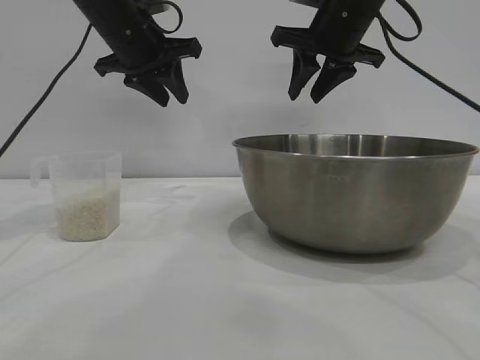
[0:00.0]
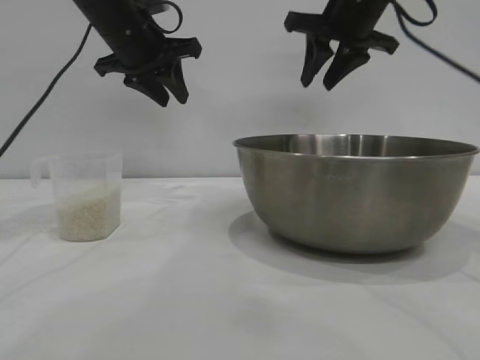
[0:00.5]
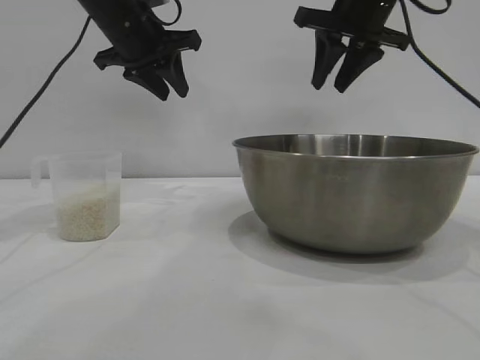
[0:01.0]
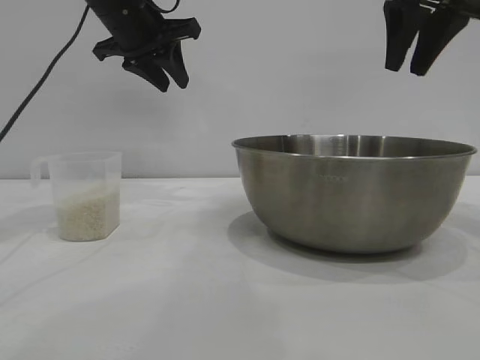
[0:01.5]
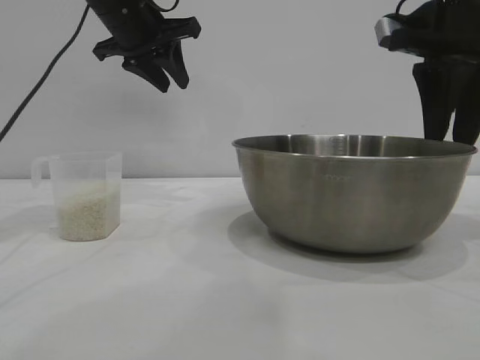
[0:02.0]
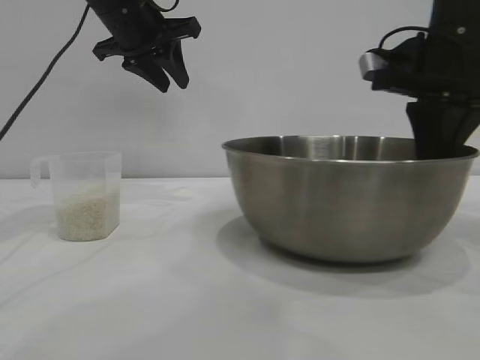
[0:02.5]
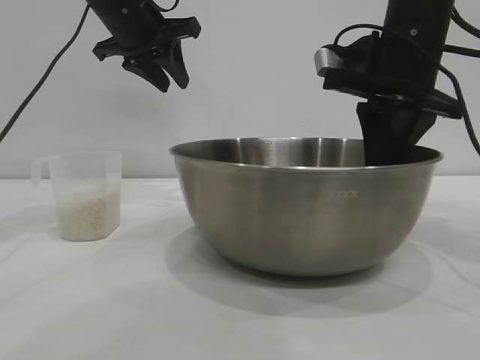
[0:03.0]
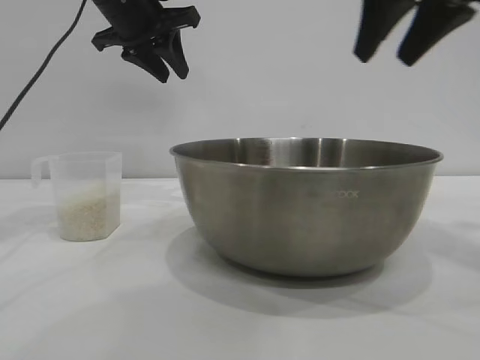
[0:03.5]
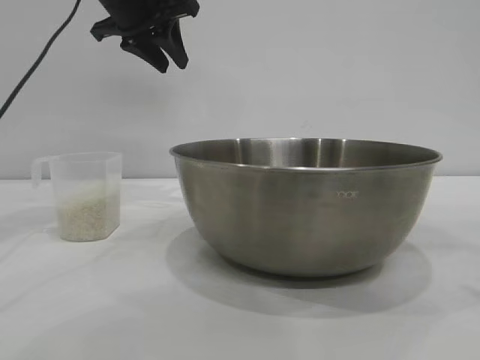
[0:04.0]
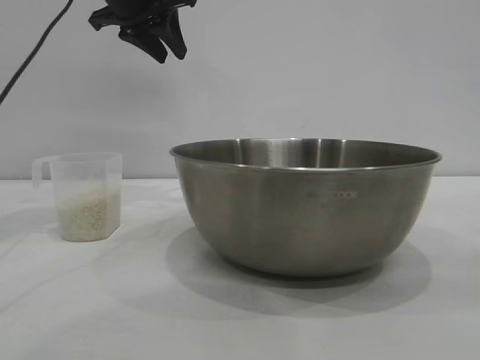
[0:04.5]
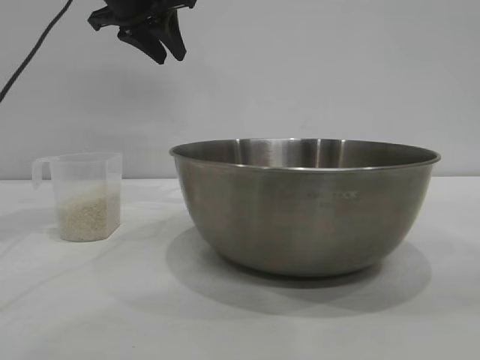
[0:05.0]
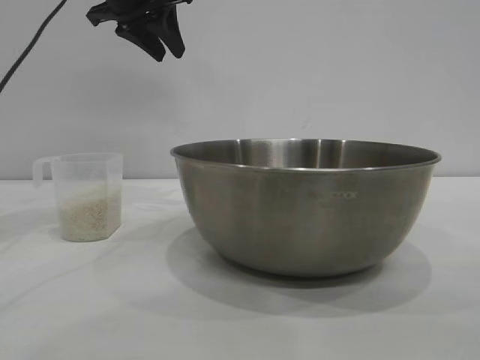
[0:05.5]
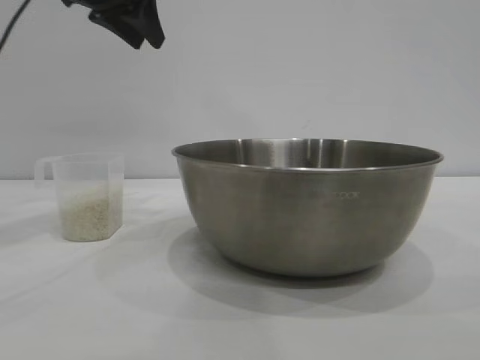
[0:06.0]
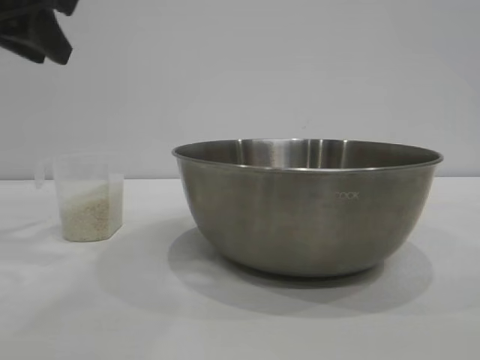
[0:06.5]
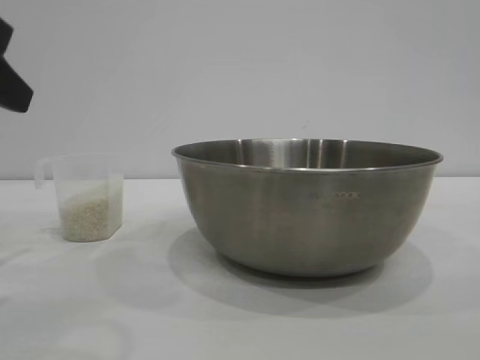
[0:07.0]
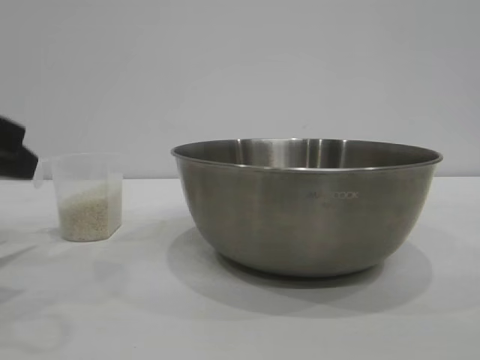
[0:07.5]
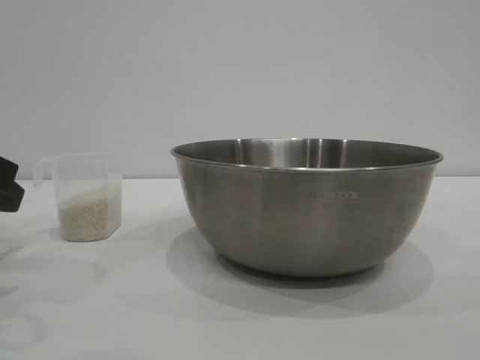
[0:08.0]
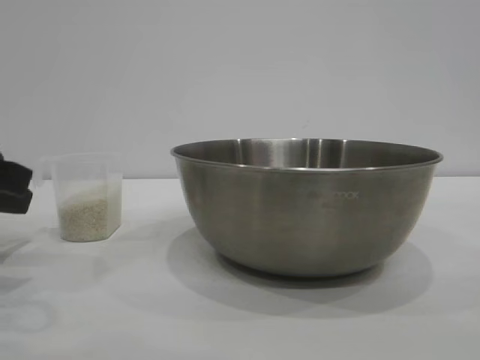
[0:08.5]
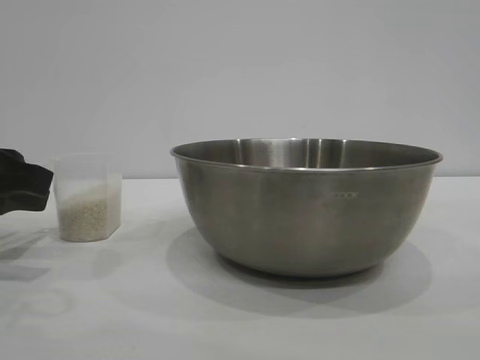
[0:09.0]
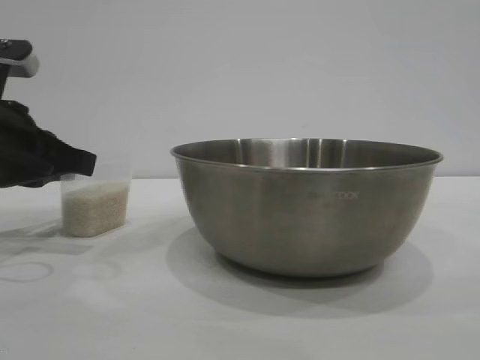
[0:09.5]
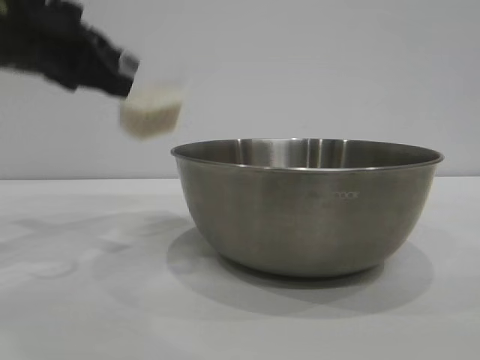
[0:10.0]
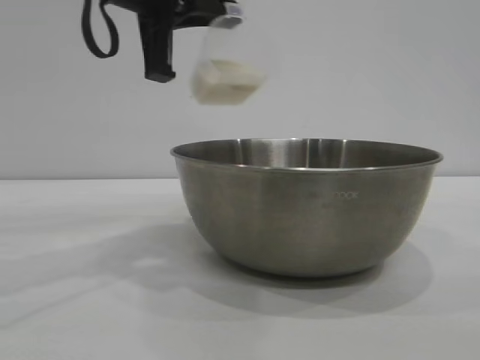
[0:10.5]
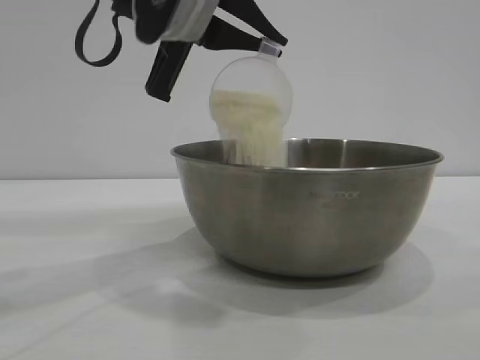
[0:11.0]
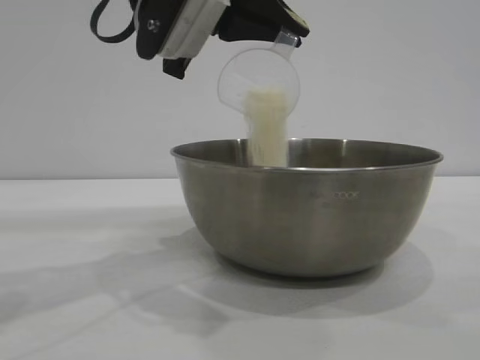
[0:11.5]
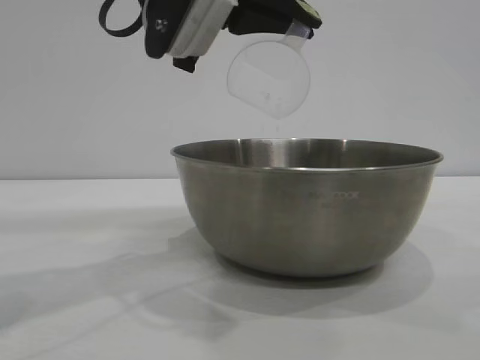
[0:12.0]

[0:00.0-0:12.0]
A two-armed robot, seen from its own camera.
Task of the whole recording: the right gripper grasp the rice container and place it in the center of the table, the left gripper grasp the rice scoop and pour the rice into the rice container.
Step, 0:00.0 to 0:03.0: Move the bowl to the center of view with the right gripper.
Step, 0:03.5 to 0:09.5: Pick up the cup with rice in it with the left gripper.

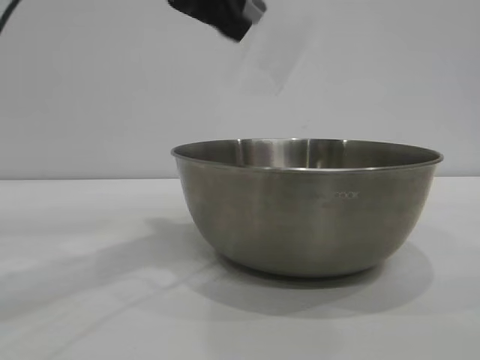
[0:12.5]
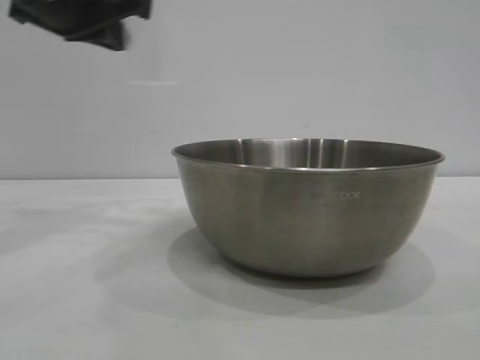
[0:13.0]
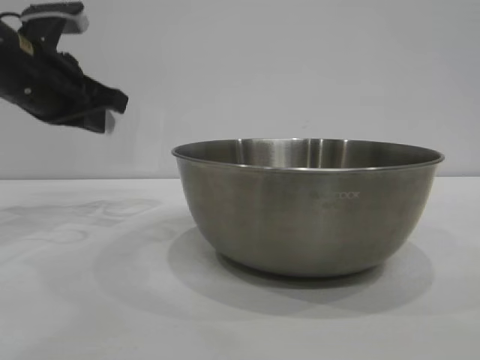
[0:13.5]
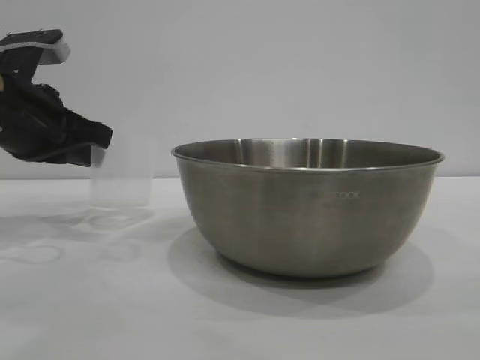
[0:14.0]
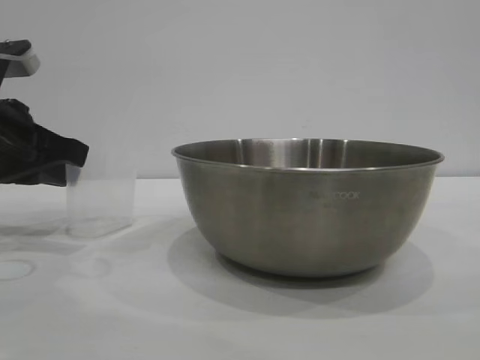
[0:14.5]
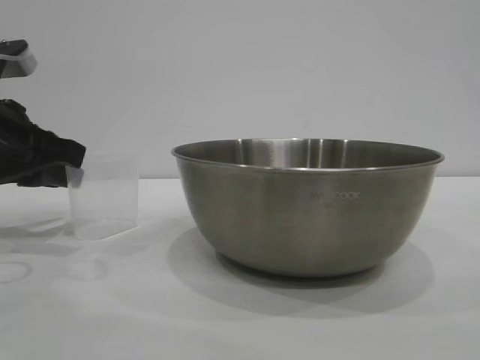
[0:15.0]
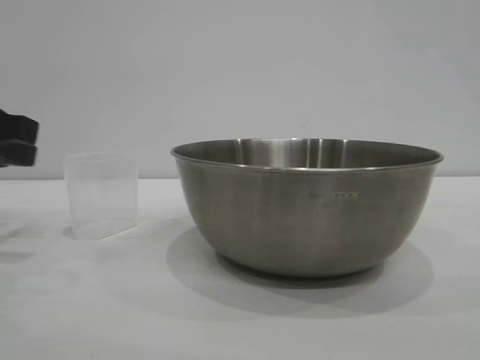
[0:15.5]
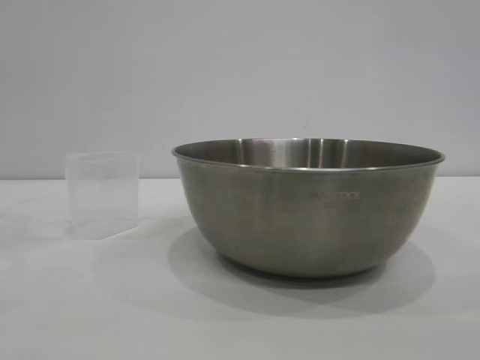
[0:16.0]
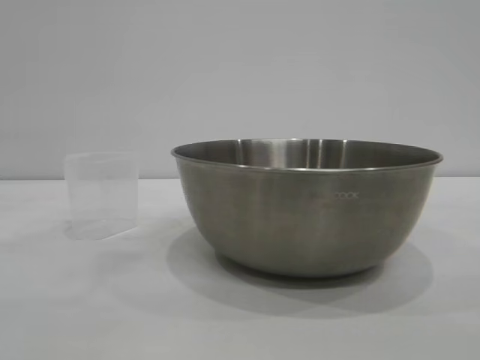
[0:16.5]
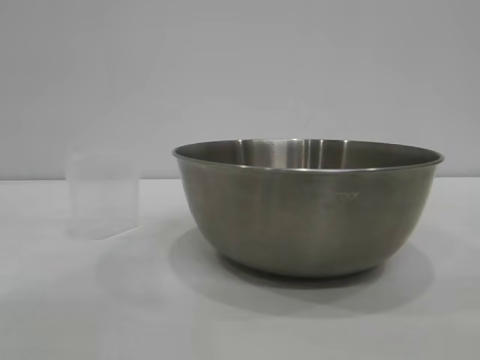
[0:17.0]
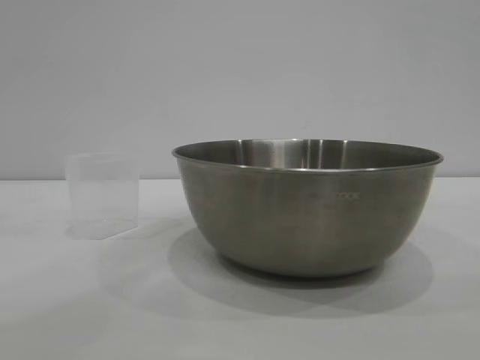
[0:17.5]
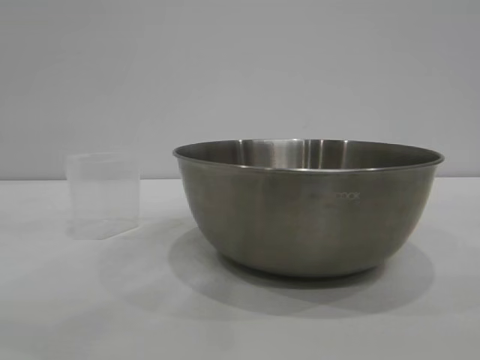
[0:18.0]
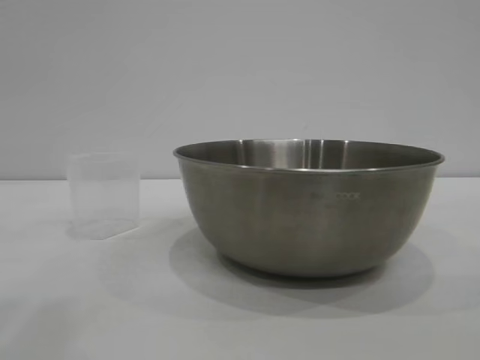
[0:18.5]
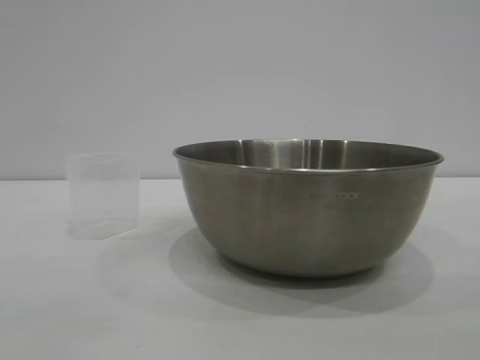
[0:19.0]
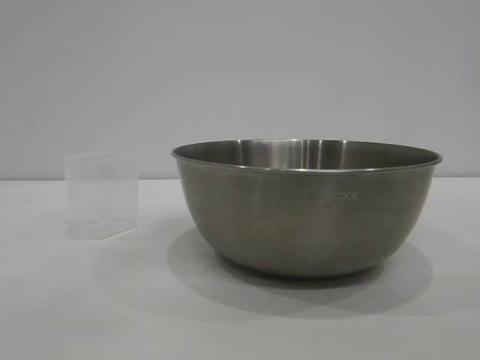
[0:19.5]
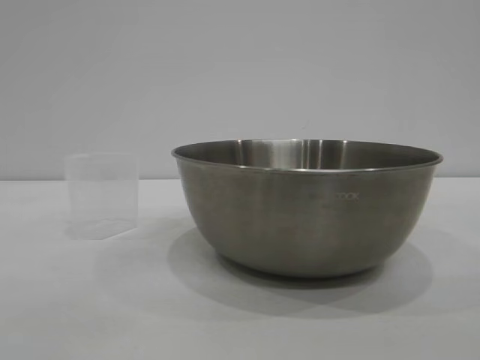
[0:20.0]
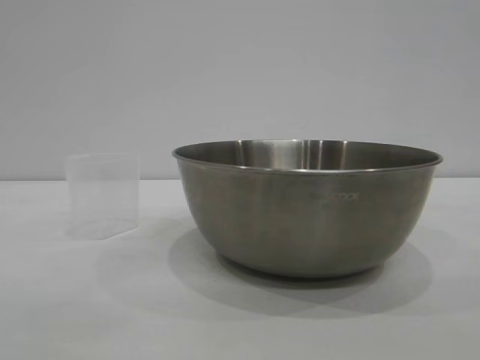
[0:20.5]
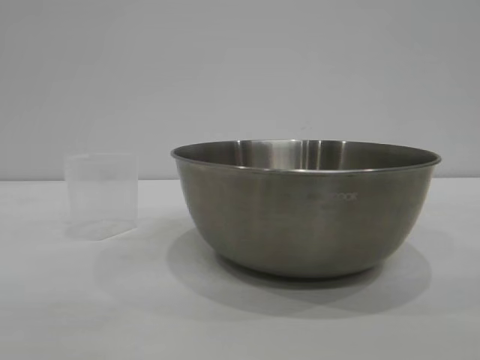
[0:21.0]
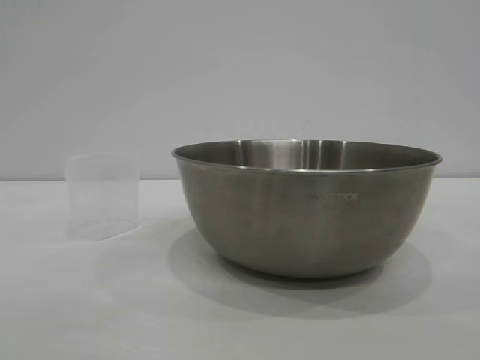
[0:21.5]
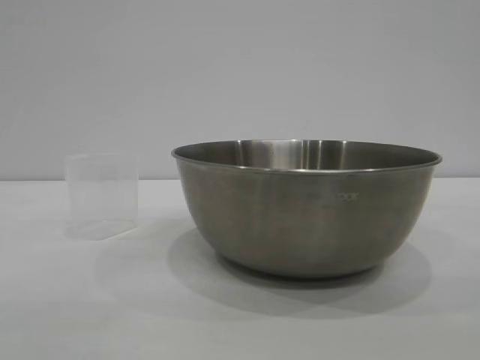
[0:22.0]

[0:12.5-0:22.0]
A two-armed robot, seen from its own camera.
Task of the whole recording: the right gripper grasp the rice container and place it in the center of the table, the left gripper grasp the rice scoop and pour the rice into the rice container.
Step, 0:13.0 to 0:15.5: Place the cup on the table with the left gripper.
